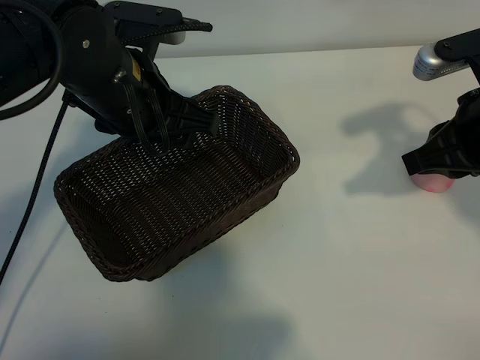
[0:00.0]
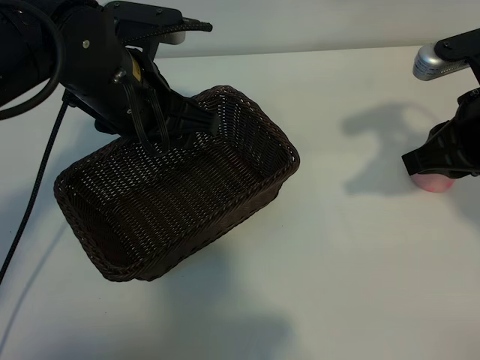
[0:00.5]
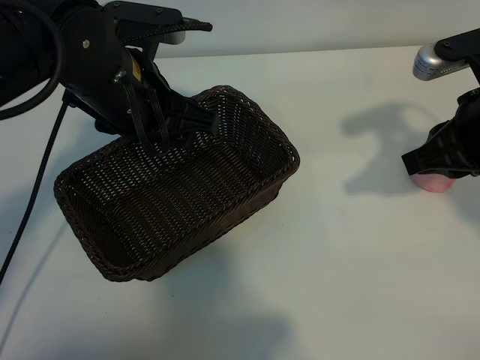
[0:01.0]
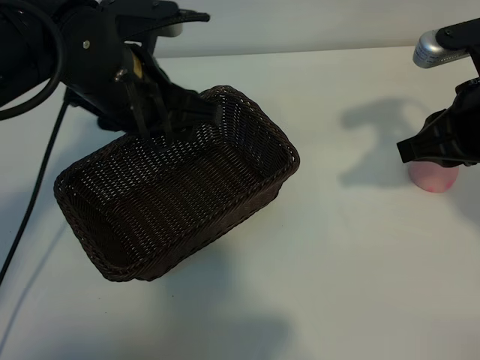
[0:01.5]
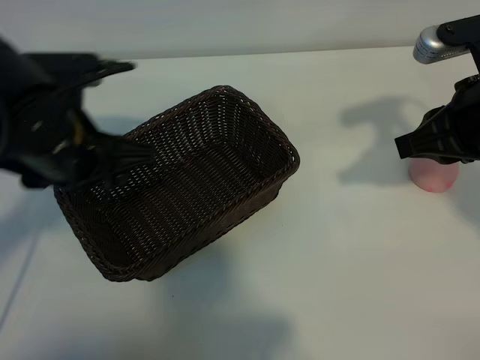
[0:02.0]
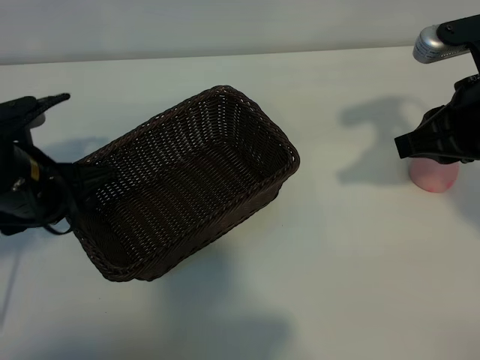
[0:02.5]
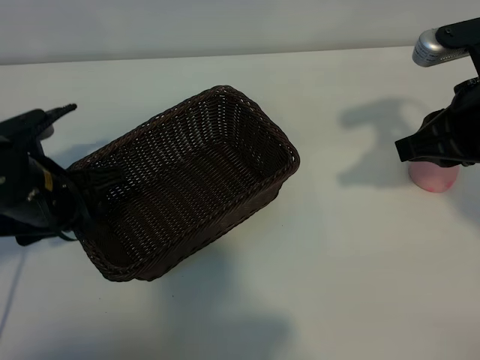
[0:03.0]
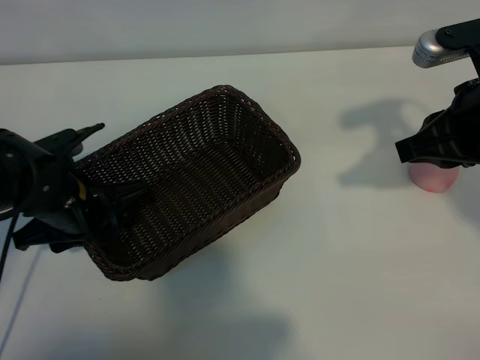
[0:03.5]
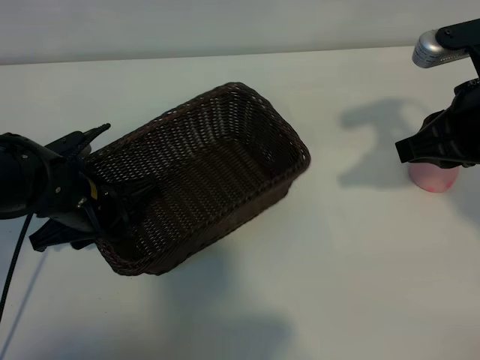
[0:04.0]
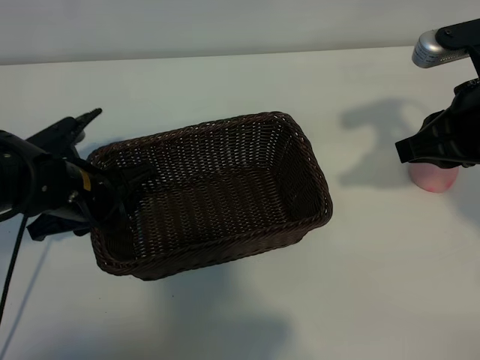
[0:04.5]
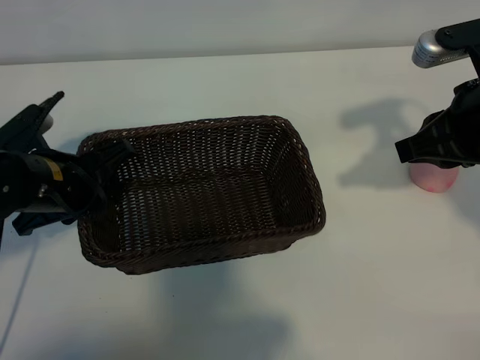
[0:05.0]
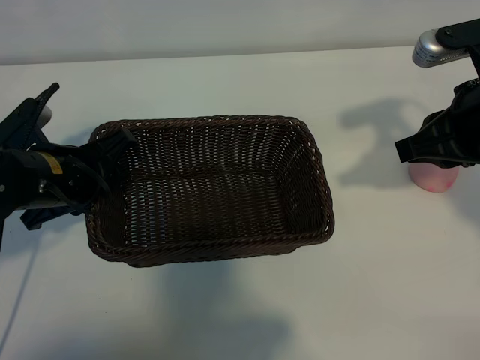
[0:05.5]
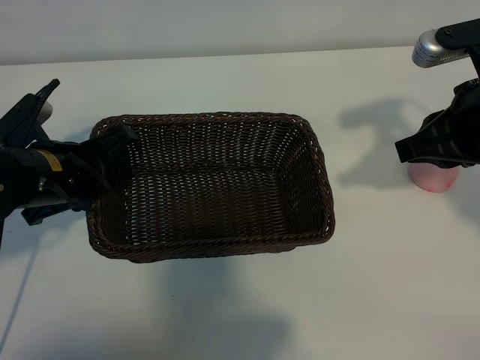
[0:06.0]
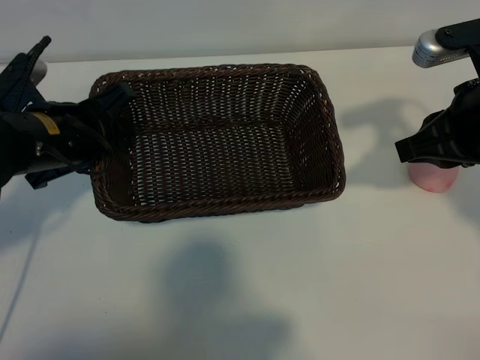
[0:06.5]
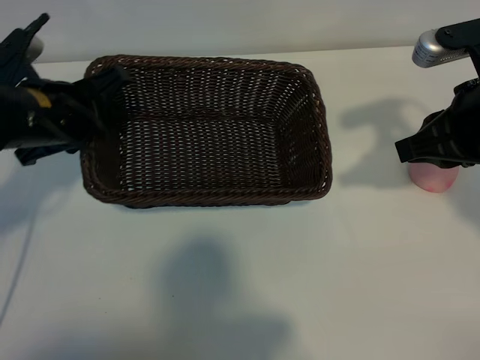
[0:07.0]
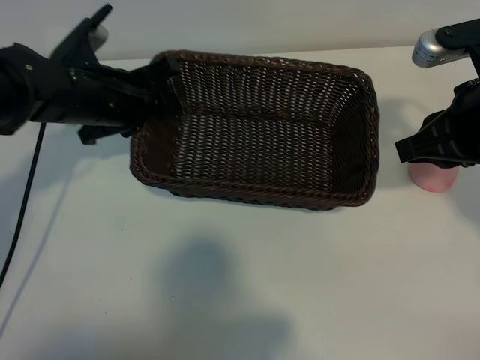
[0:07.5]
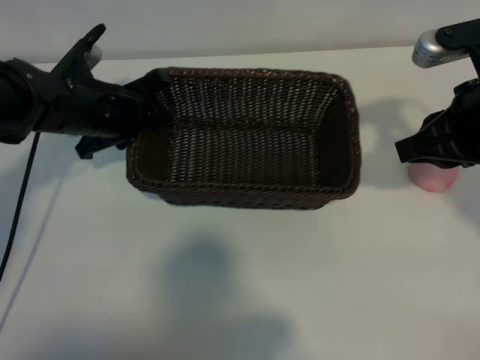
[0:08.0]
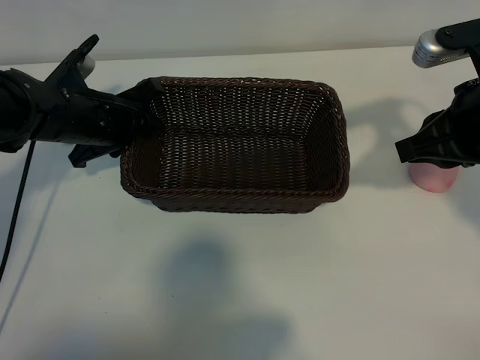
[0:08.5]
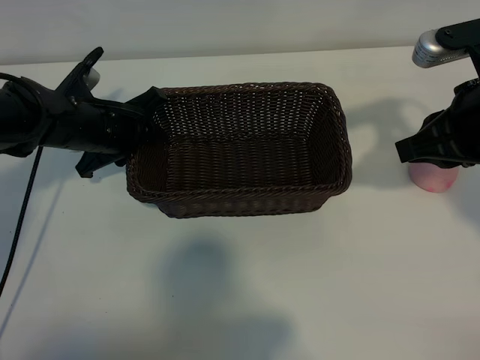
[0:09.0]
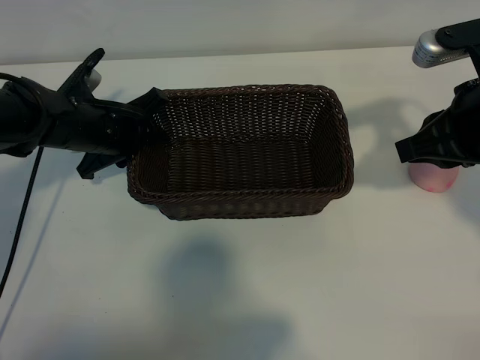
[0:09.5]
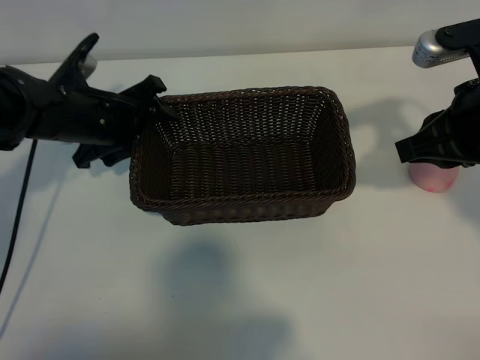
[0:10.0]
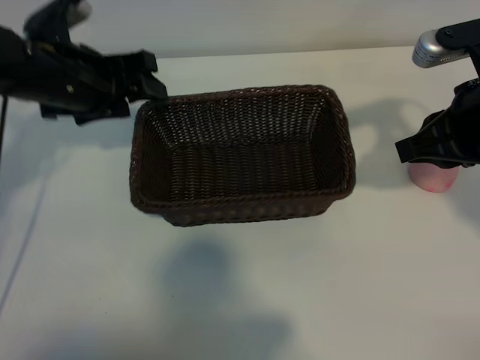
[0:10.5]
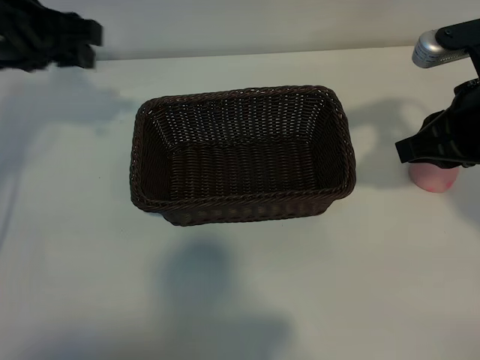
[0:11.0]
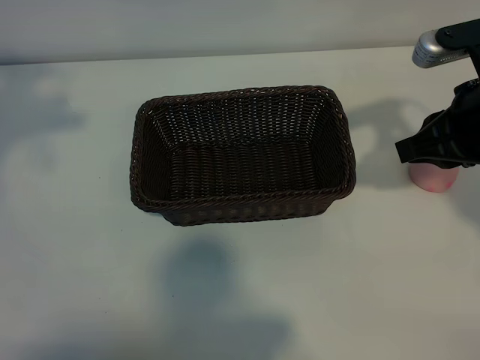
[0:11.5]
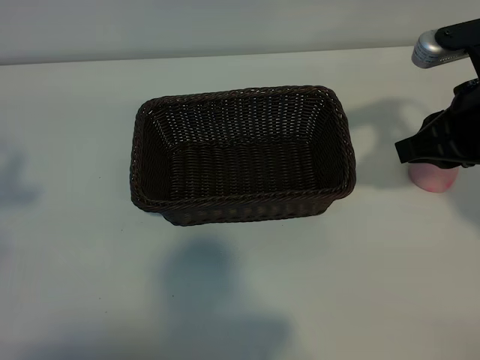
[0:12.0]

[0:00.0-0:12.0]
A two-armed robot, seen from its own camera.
Task of the whole recording: pick up the peach and put it into the basket.
Step, 0:01.5 to 0:04.0: Grasp the basket with left gripper.
Step, 0:04.5 to 0:10.0: Place the basket in the center of view with left gripper.

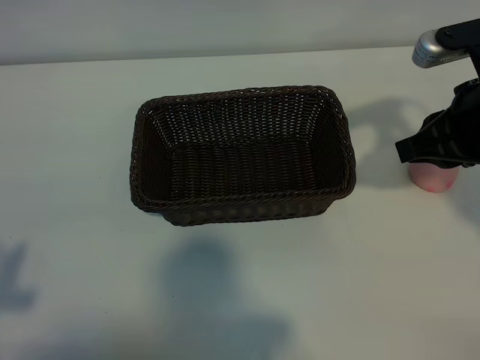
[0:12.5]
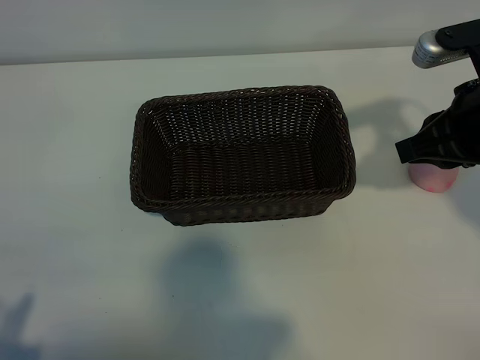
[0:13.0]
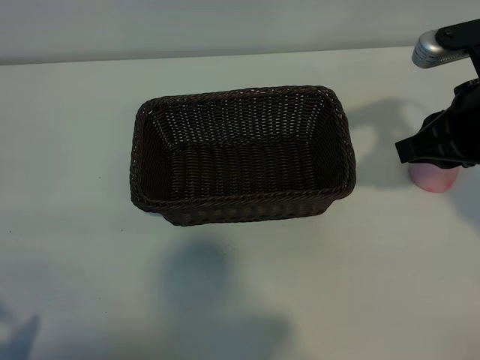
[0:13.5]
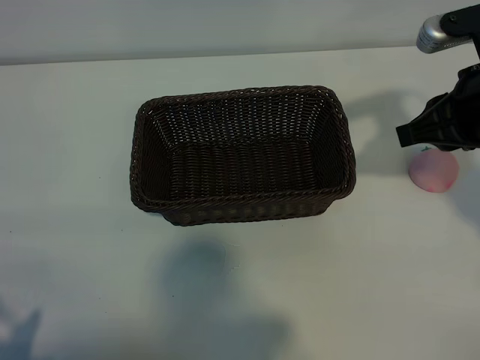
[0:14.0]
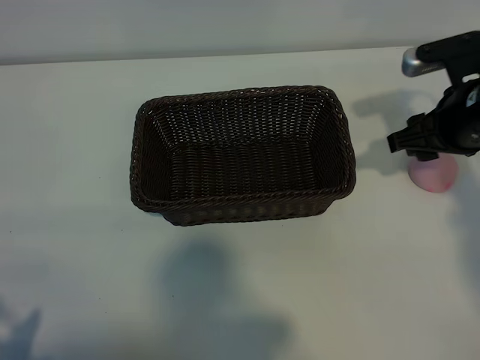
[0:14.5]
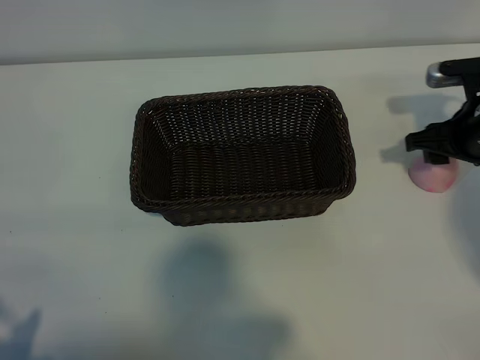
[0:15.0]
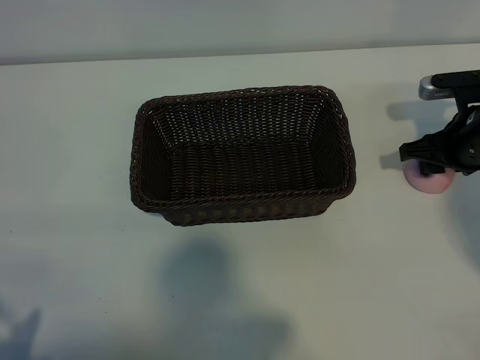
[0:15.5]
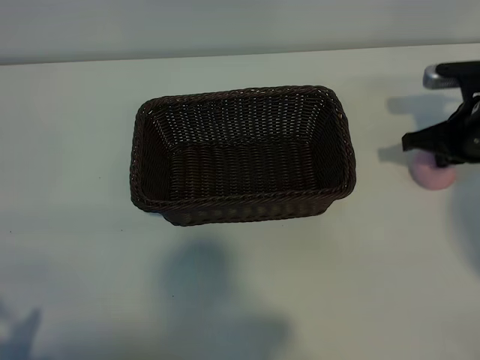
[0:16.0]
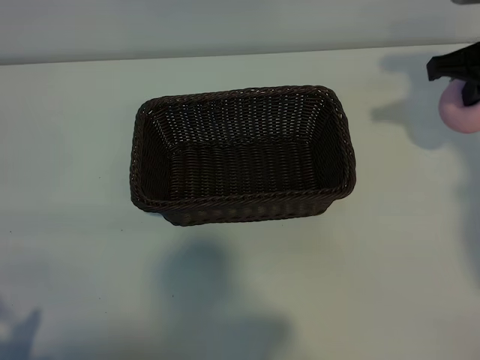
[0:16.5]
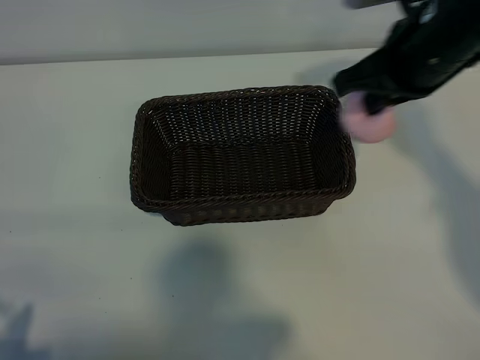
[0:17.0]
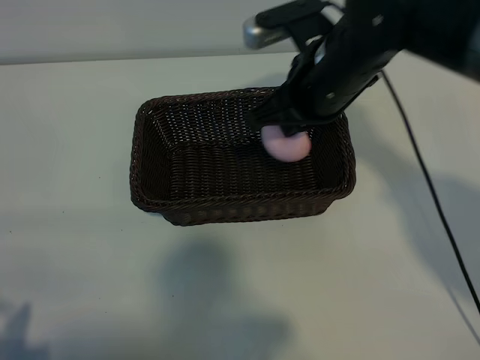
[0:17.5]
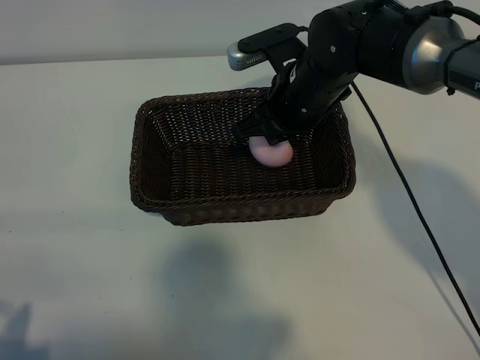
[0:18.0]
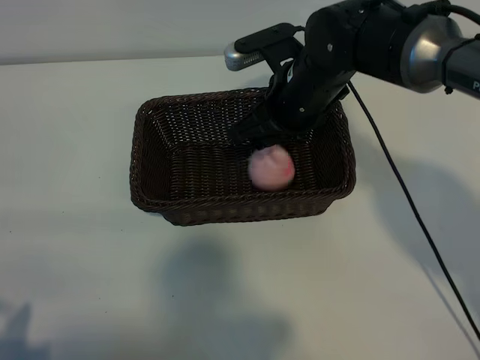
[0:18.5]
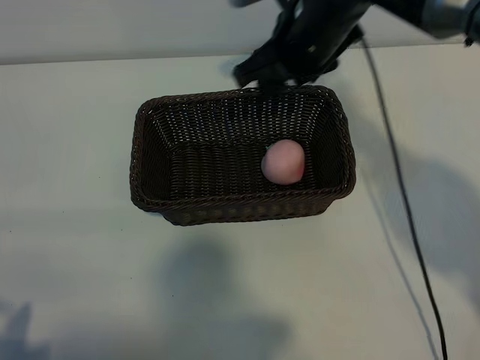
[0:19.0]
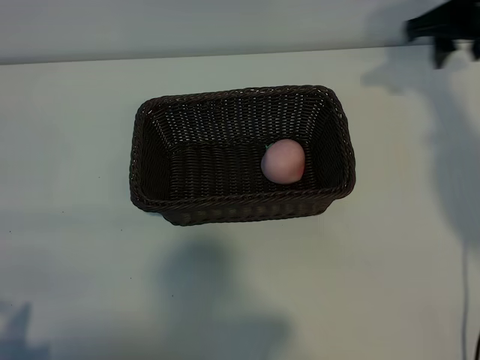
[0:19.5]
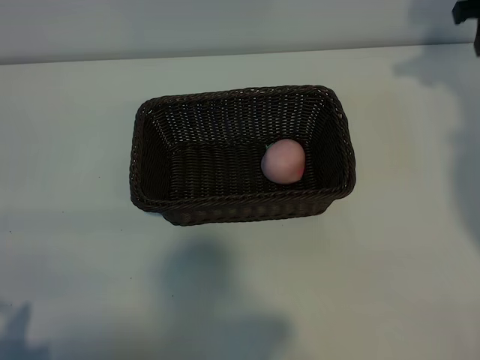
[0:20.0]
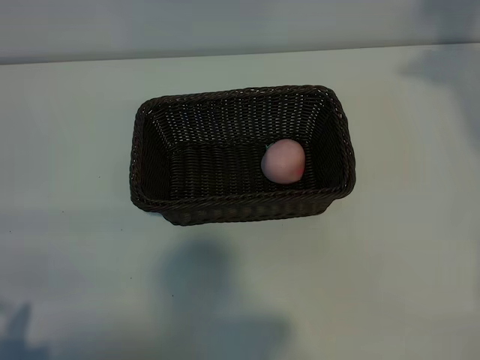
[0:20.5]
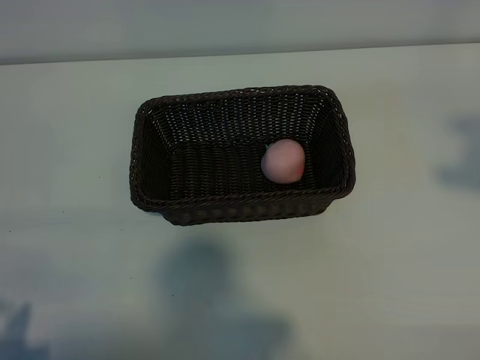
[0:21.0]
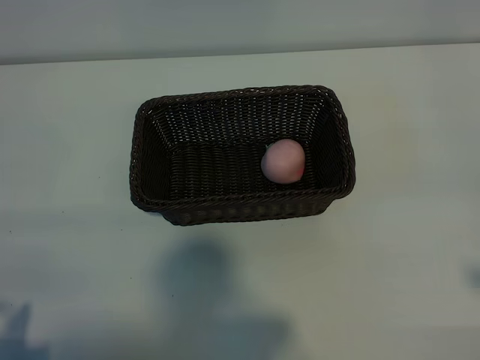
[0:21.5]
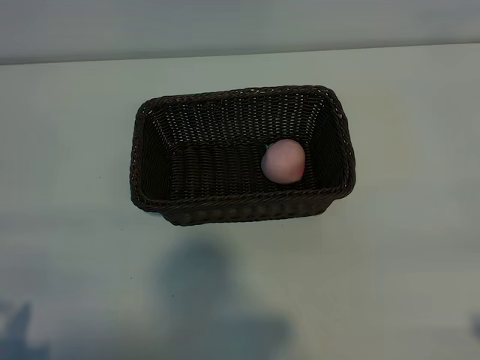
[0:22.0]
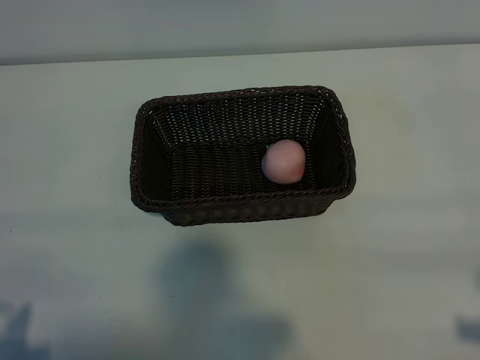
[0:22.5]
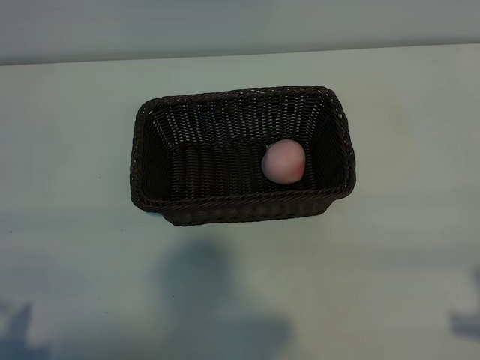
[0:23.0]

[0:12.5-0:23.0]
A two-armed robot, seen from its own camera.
Task of the whole recording: pick up the peach and put it into the basket.
Step, 0:12.5 to 0:15.5: Grasp the peach with right gripper.
Step, 0:16.0 to 0:18.5: Place the peach in the basket with right gripper.
